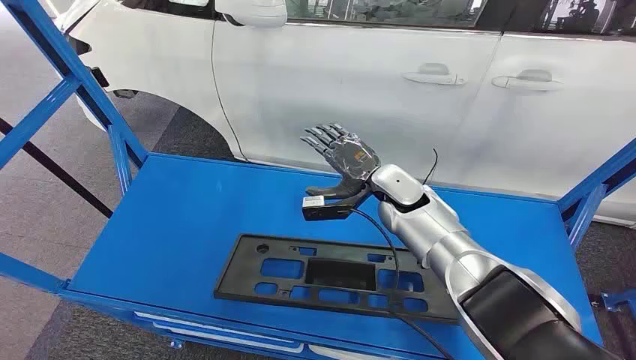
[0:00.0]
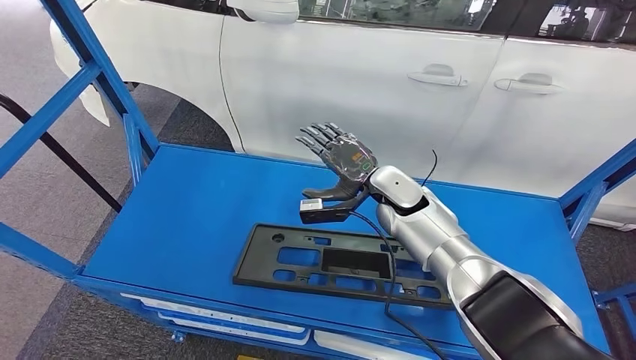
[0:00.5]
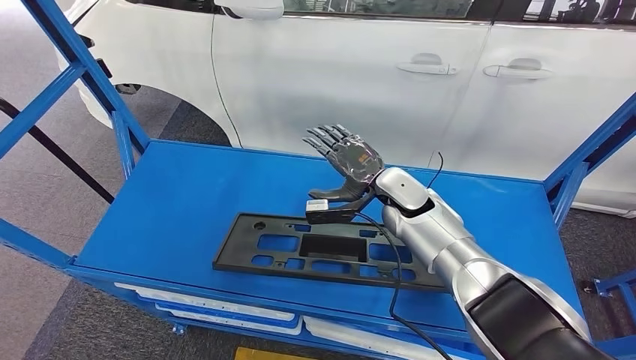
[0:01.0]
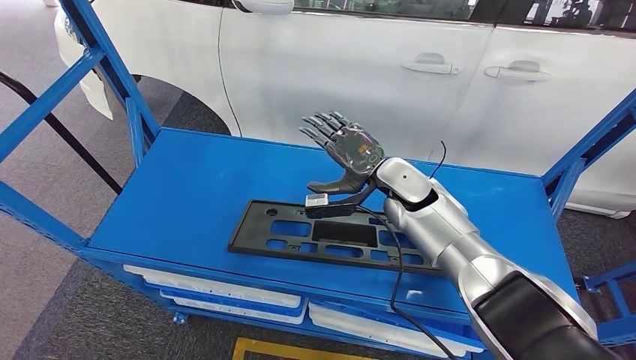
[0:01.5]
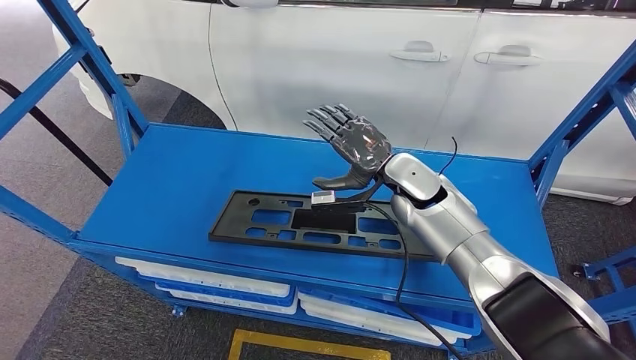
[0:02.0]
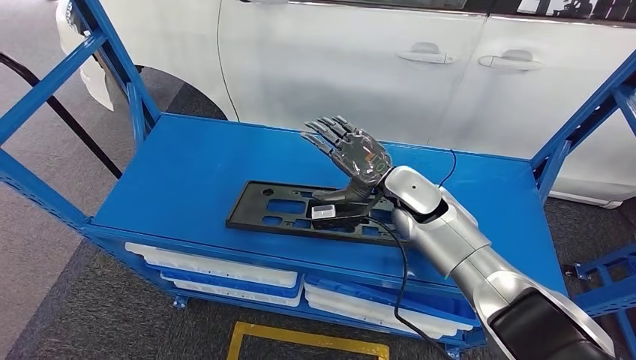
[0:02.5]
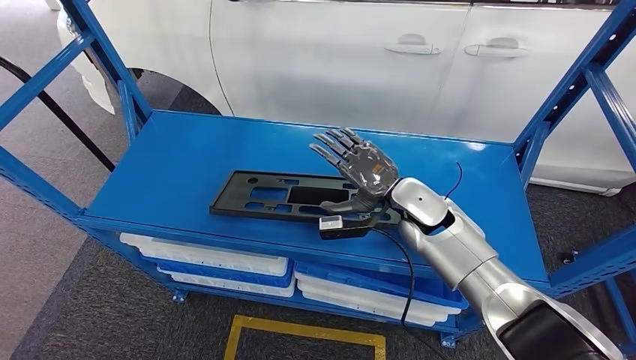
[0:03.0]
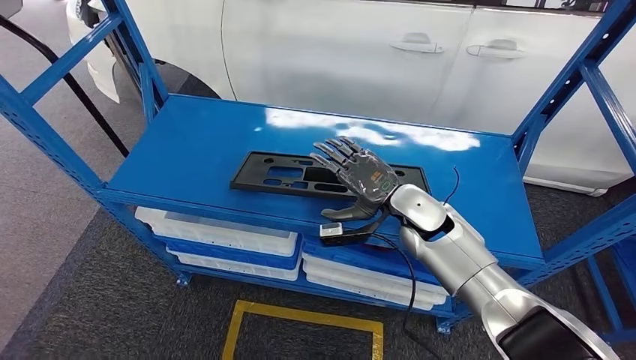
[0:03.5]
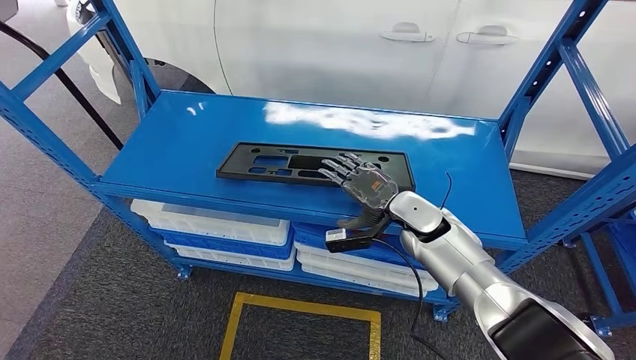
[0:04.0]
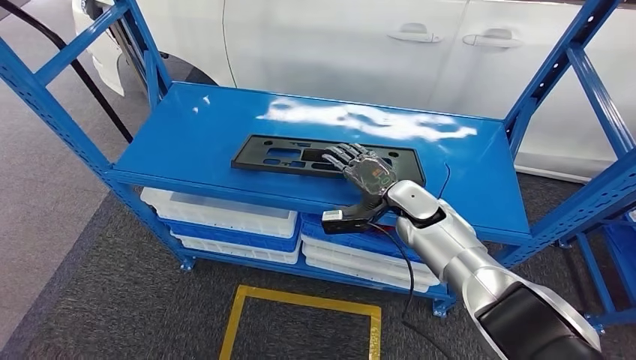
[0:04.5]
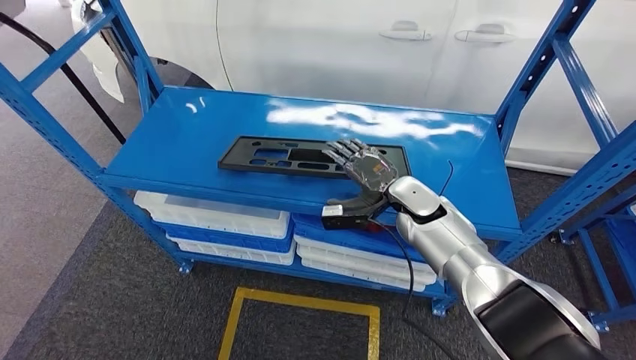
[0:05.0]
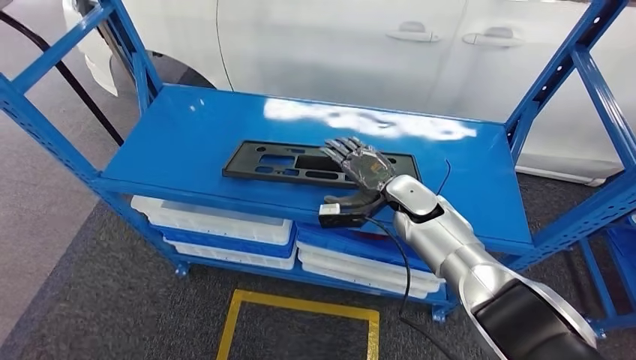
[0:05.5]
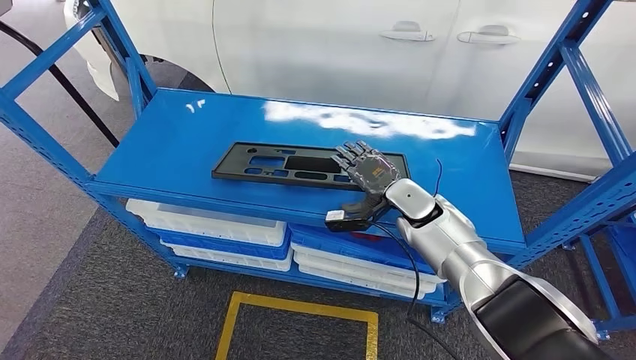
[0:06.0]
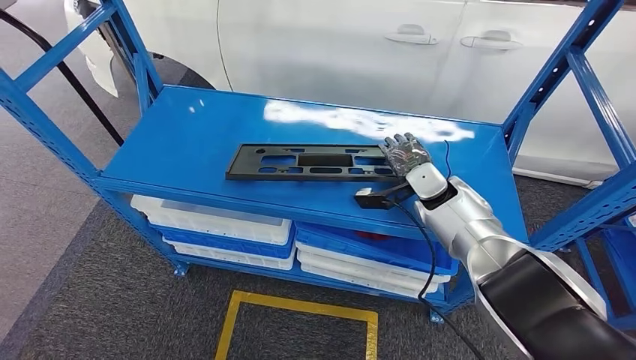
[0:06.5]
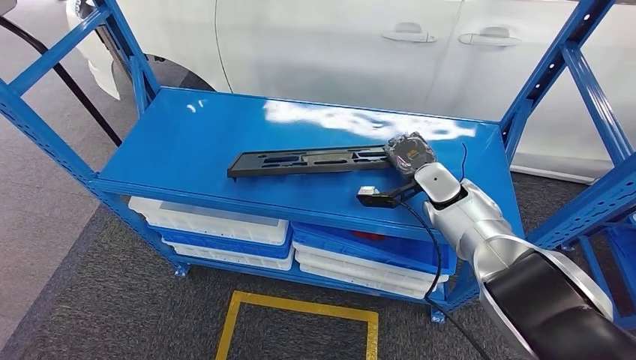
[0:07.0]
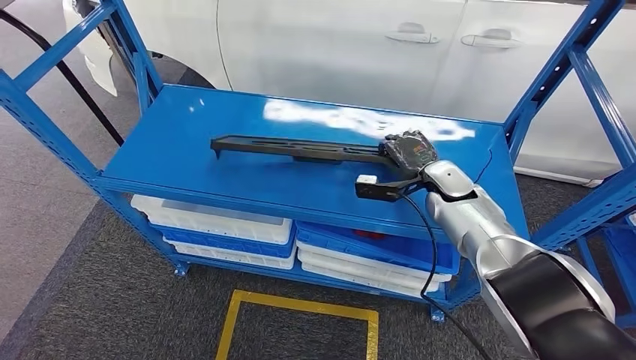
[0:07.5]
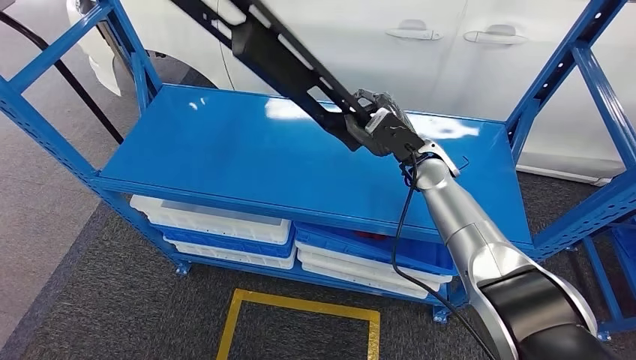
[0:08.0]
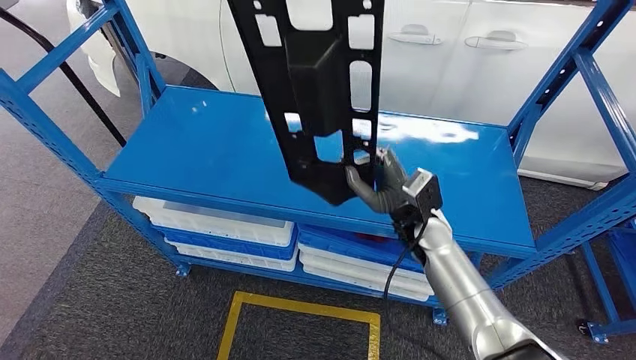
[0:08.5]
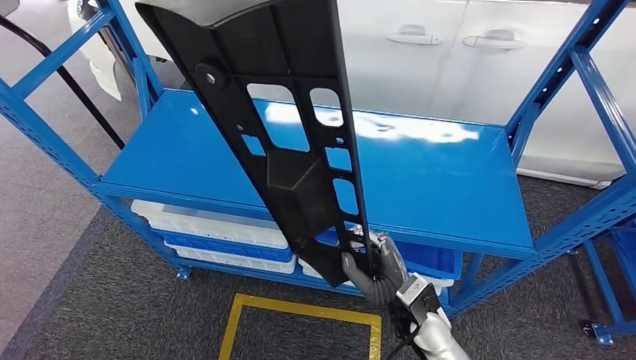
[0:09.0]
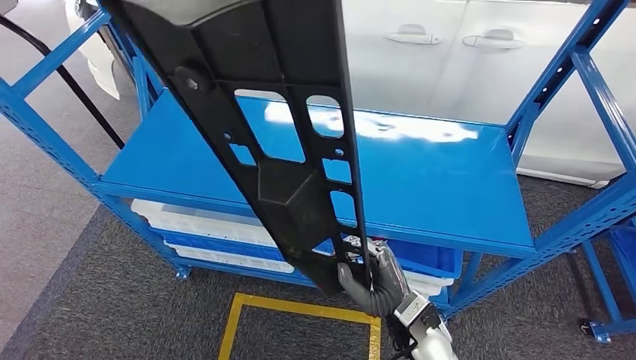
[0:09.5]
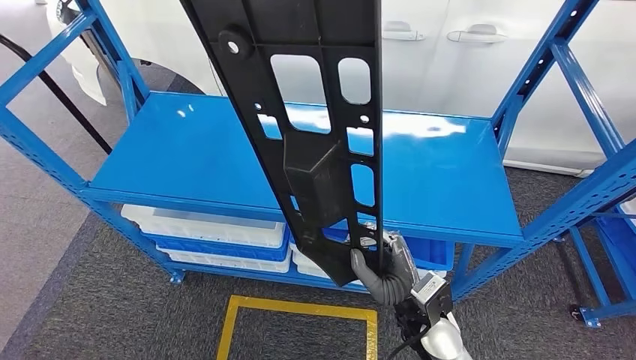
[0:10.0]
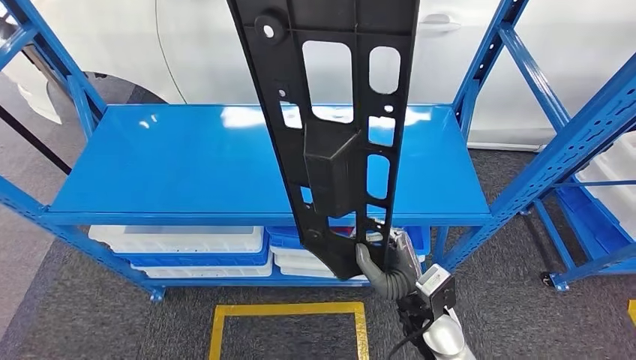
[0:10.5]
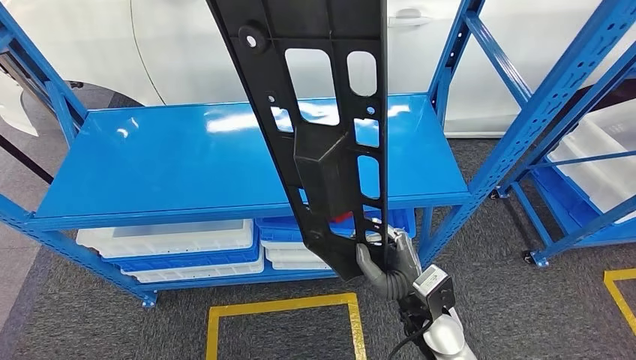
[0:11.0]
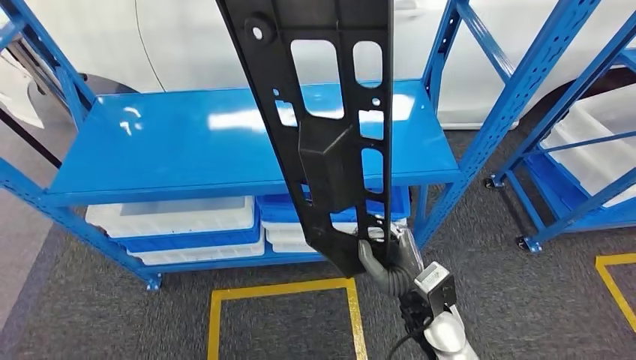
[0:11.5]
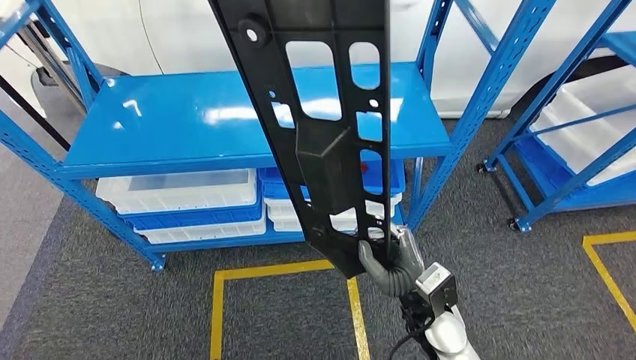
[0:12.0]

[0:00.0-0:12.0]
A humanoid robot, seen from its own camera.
Step, 0:00.0 to 0:08.0: Pick up the large material from the shelf.
0:04.0 to 0:06.0: The hands make only small movements.

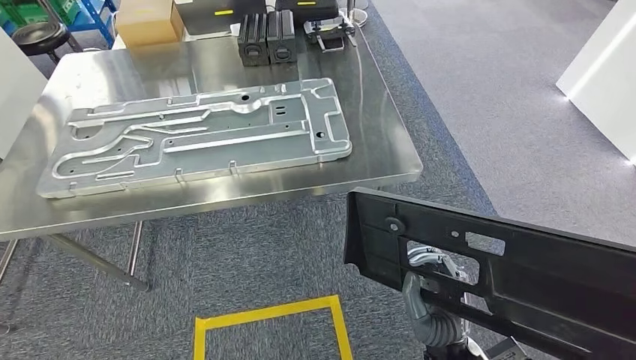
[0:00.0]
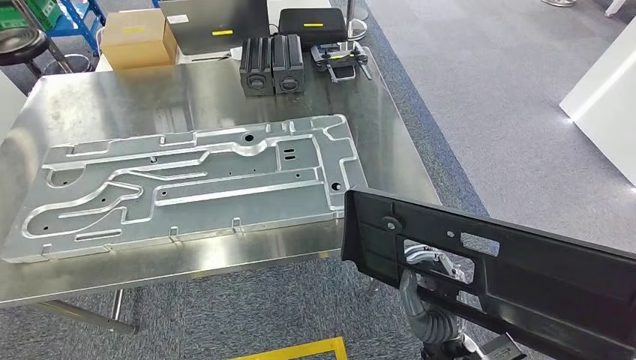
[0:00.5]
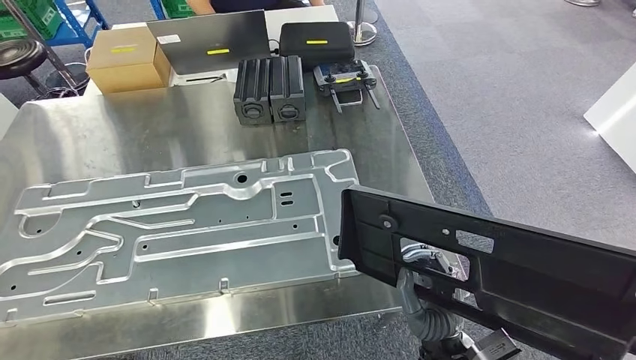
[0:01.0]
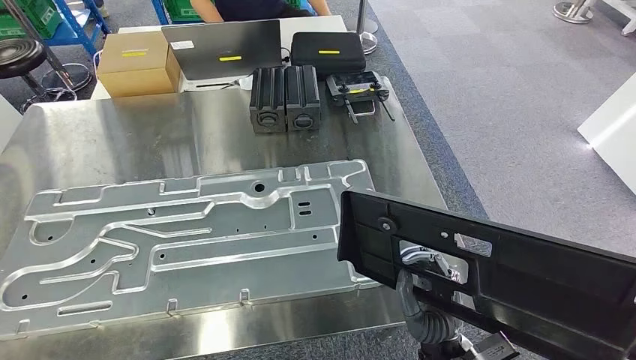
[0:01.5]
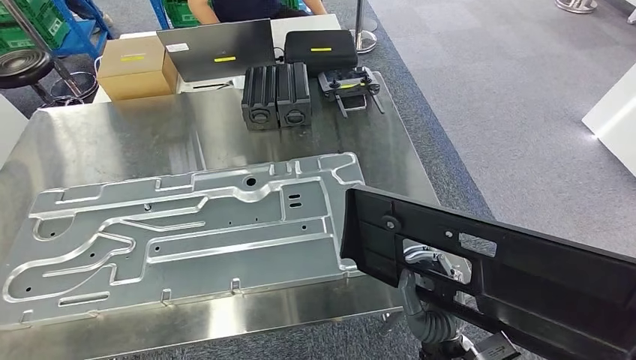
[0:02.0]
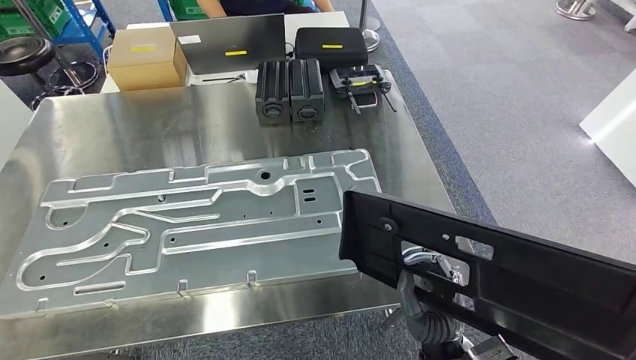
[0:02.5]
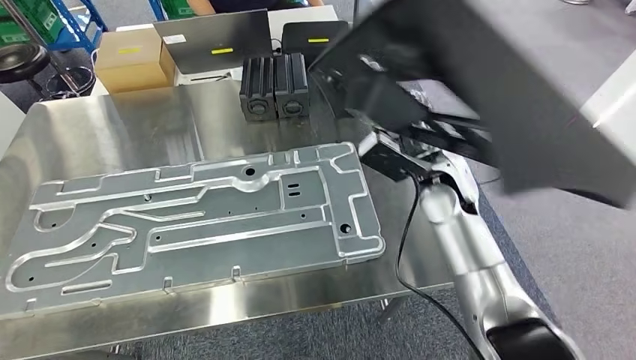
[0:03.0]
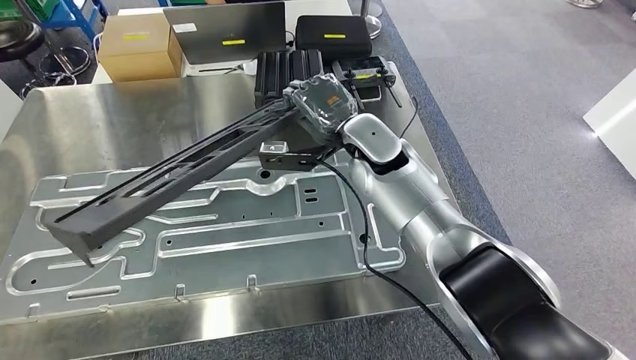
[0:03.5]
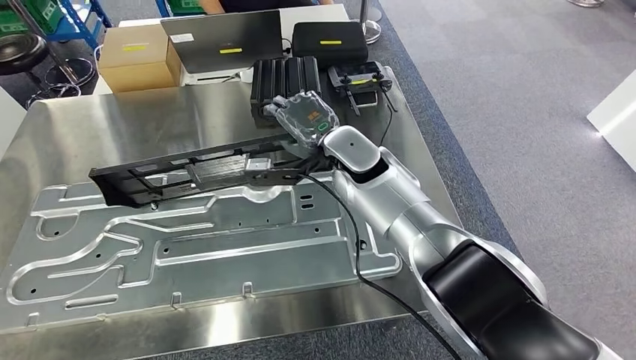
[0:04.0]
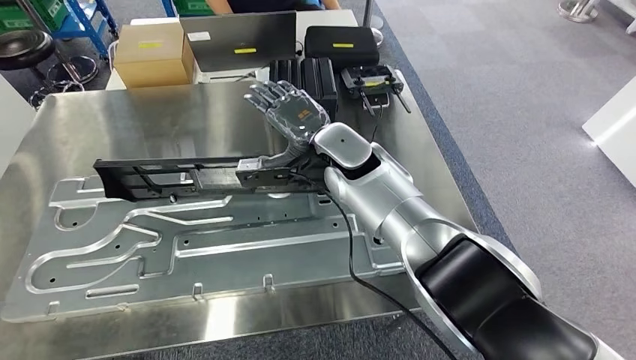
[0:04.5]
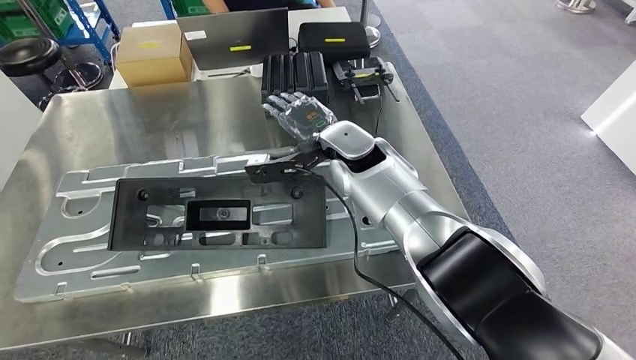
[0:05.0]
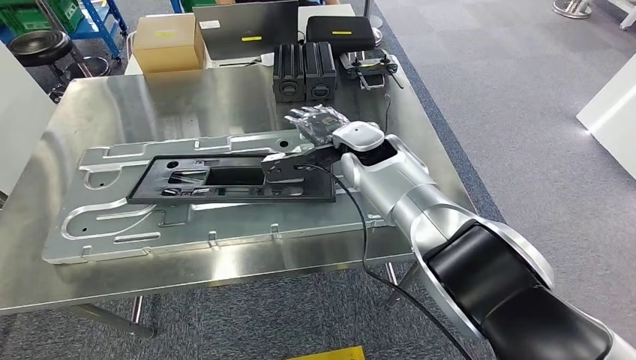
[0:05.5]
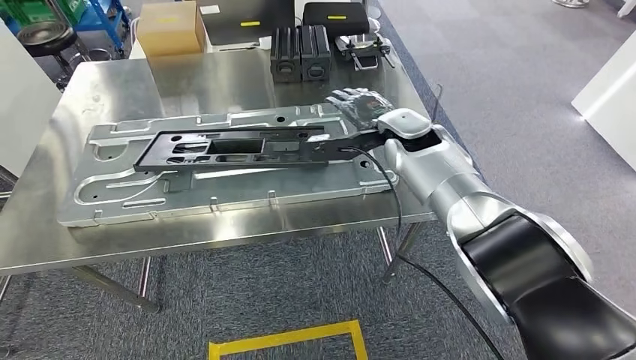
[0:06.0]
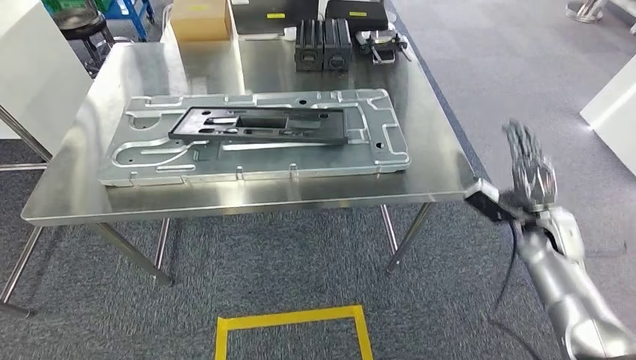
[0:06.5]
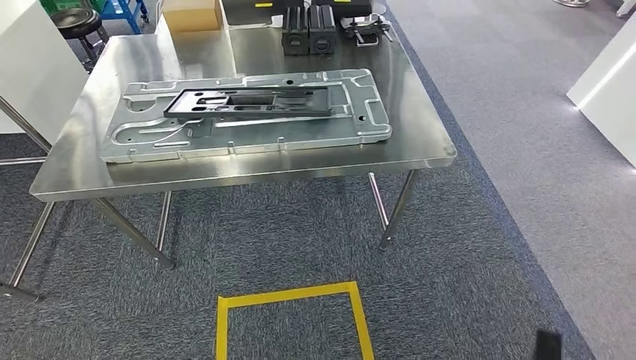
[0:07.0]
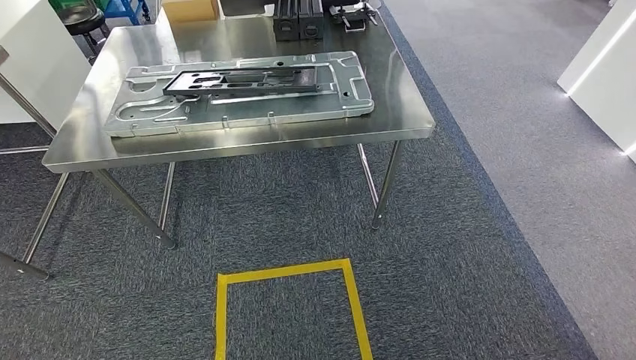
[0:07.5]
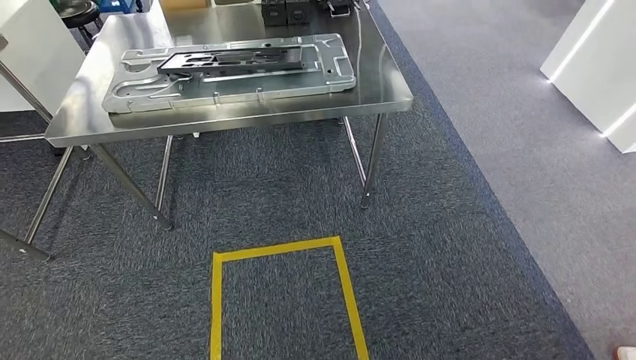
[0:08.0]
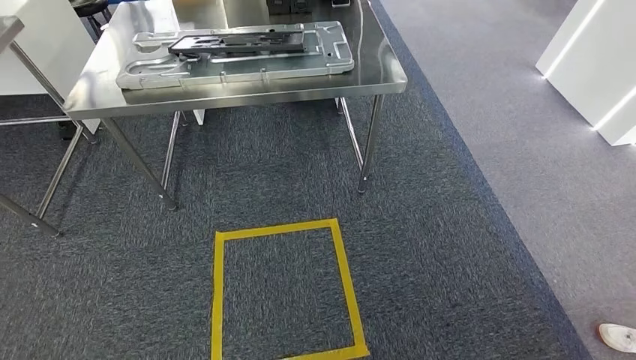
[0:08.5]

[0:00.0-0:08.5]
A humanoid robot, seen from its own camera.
Step, 0:02.5 to 0:05.5: Insert the large material into the corresponding hole on the workbench.
Step, 0:06.0 to 0:08.5: Move to the initial position of the shelf.
